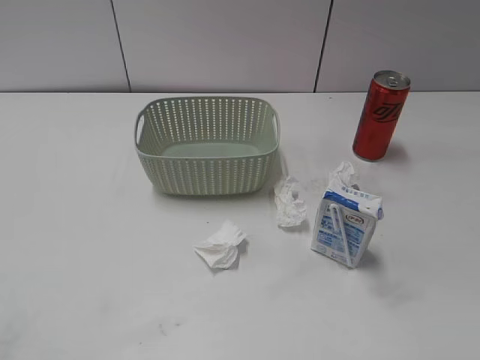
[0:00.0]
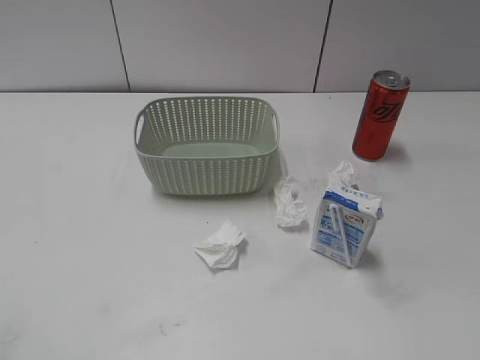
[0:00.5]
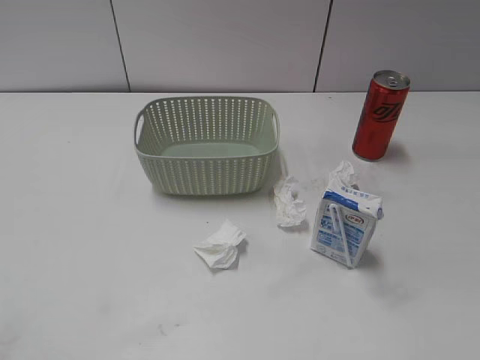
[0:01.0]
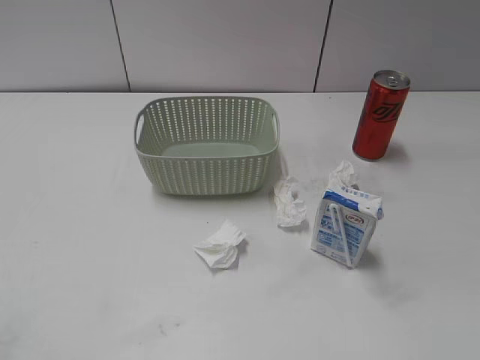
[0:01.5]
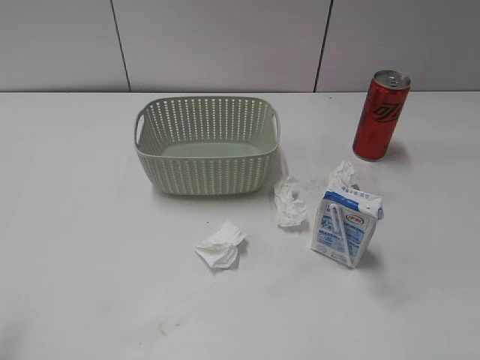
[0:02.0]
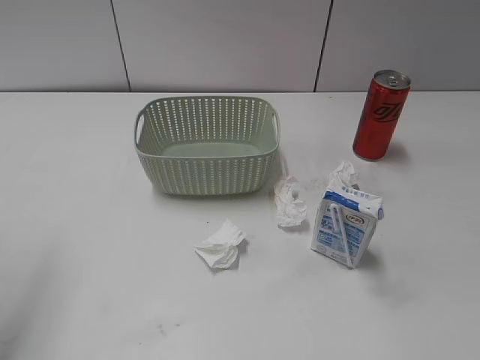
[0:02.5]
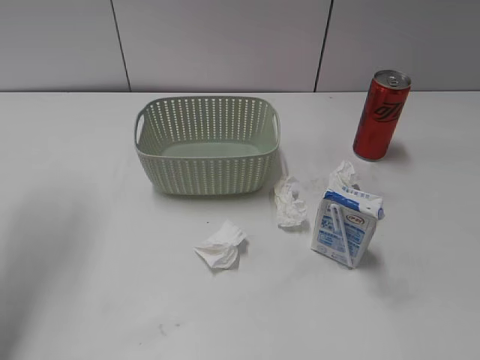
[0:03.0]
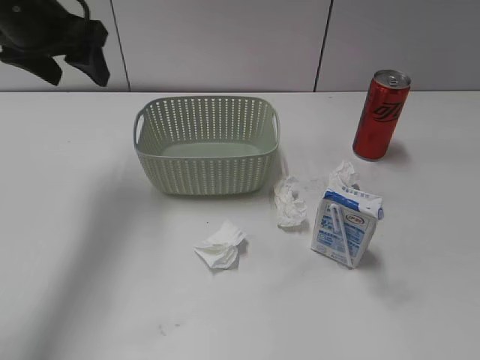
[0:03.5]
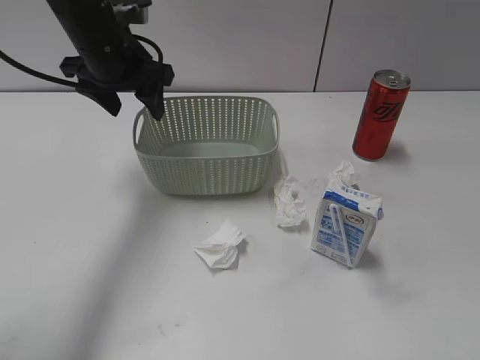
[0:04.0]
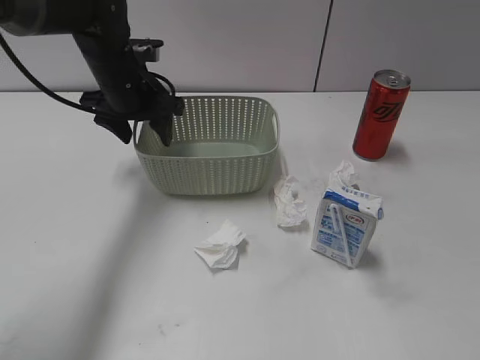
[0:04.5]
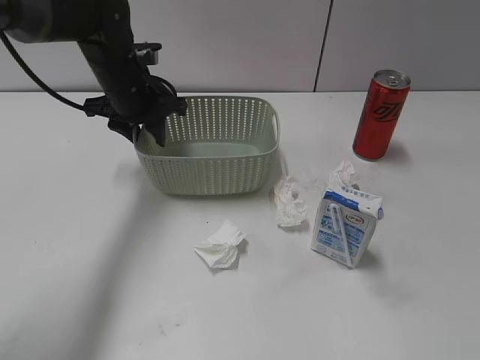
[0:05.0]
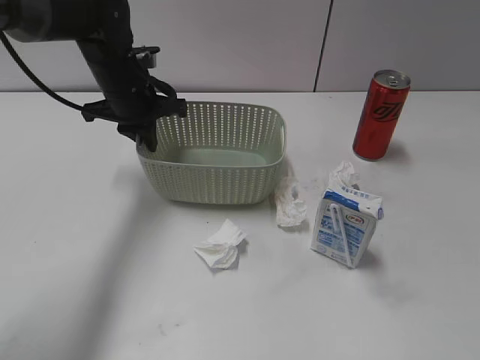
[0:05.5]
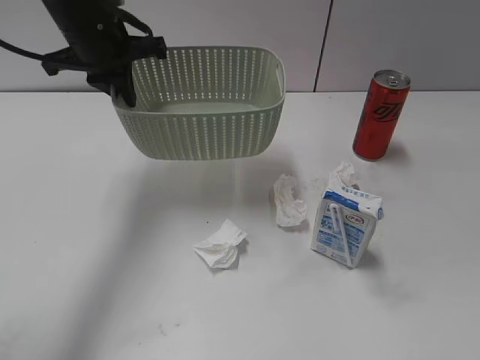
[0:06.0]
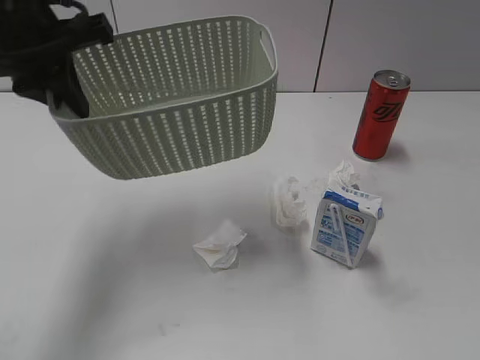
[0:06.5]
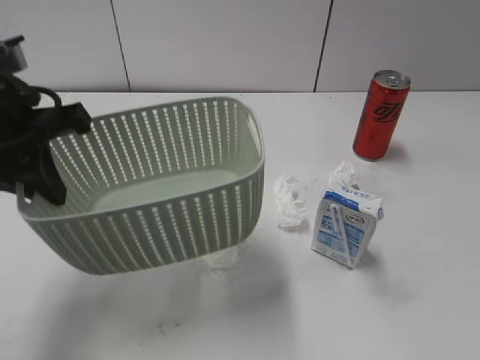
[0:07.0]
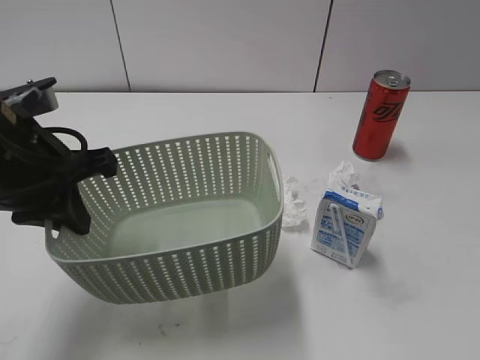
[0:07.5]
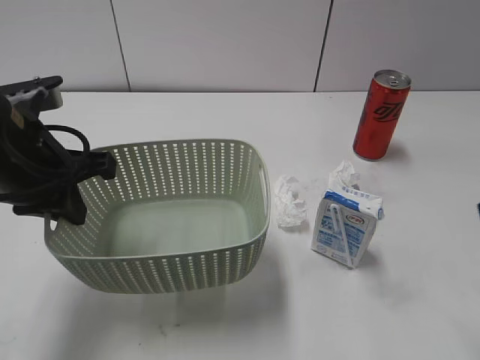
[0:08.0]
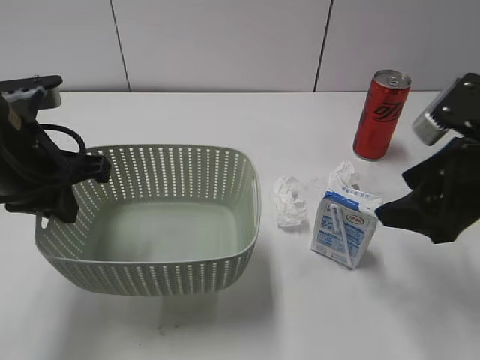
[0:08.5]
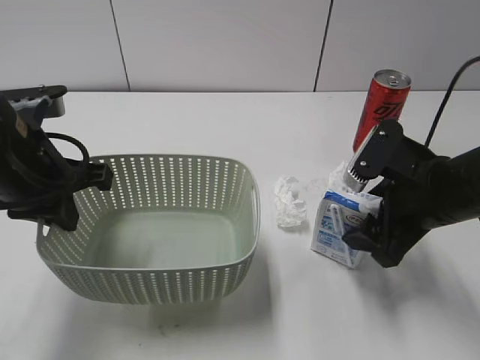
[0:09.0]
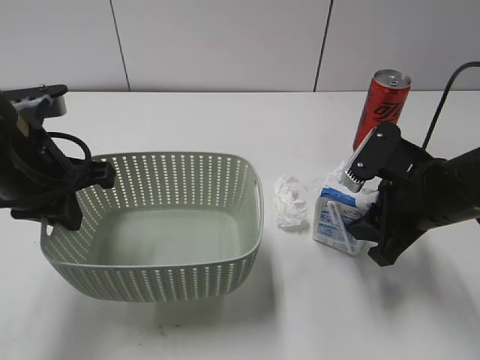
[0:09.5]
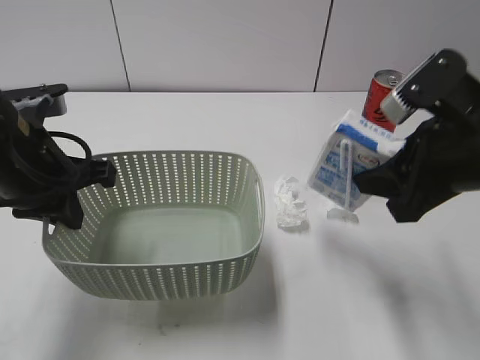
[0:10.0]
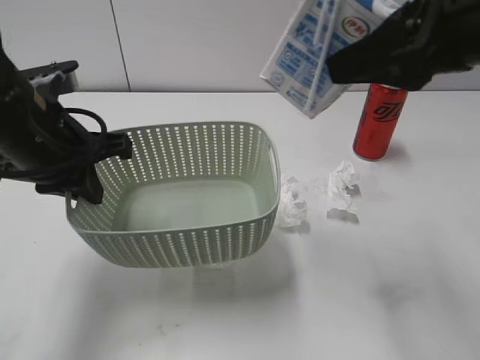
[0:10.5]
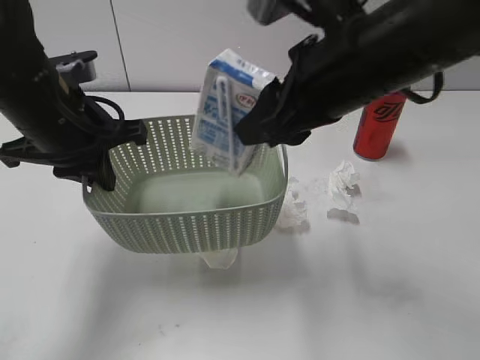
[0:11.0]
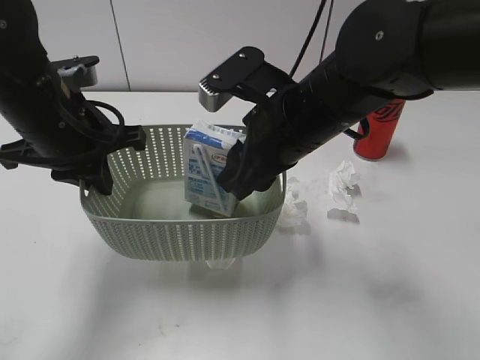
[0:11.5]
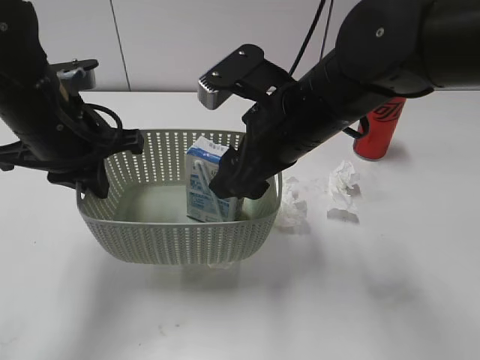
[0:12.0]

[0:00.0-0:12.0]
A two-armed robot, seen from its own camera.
Step, 0:03.5 to 0:05.0: Grasp the basket with left gripper.
Step, 0:05.5 to 0:07.5: Lift the basket with left gripper.
Step, 0:08.0 to 0:09.0: Grasp the milk with right gripper.
0:02.0 to 0:04.0: The left gripper goes approximately 40 cm forward and to the right.
0:04.0 to 0:06.0: The left gripper travels downward and back again, some 5 cm each way, and closes up.
0:06.0 to 0:08.0: The left gripper moves backward, some 15 cm. Meanwhile the right gripper is displaced forward by about 15 cm.
0:08.0 to 0:10.0: The right gripper moves forward and to the left, about 10 cm, travels downward and back again, about 15 cm each way, and closes up.
0:10.0 to 0:12.0: The right gripper heads to the left and forward, covering about 15 cm, and opens up.

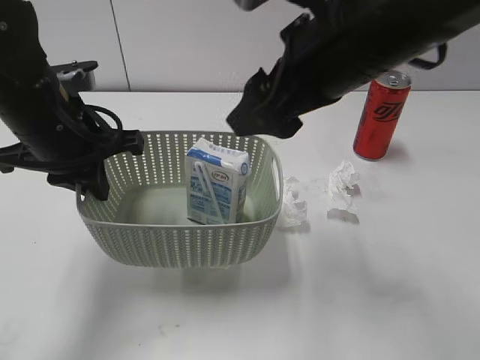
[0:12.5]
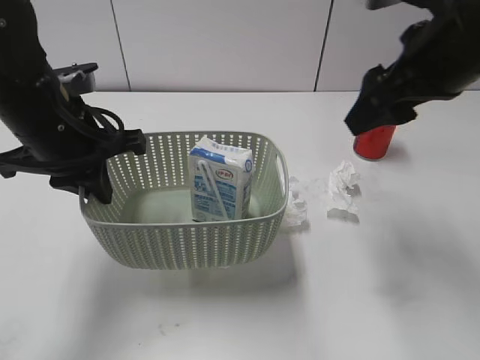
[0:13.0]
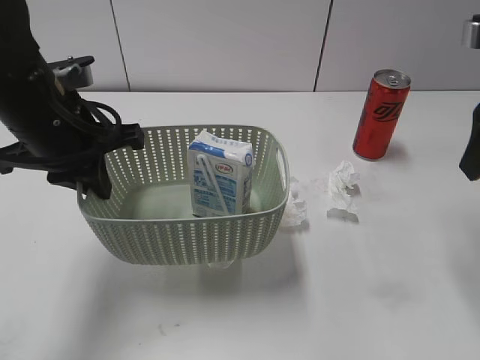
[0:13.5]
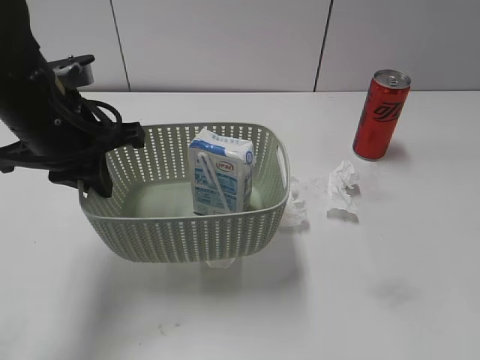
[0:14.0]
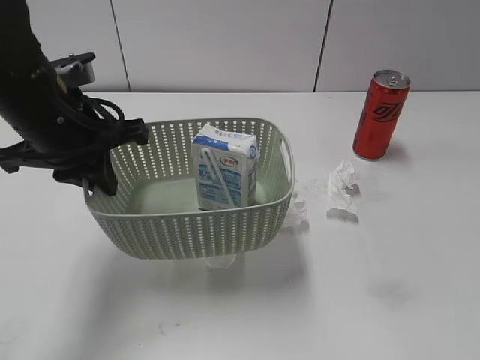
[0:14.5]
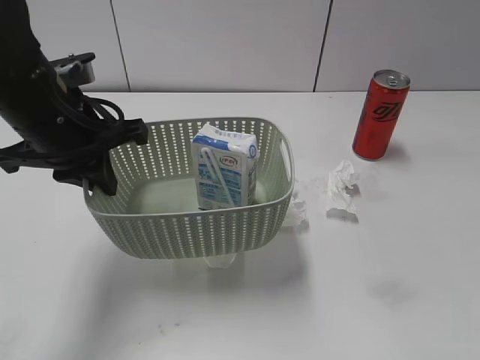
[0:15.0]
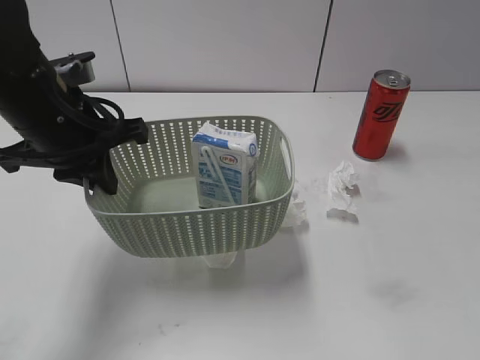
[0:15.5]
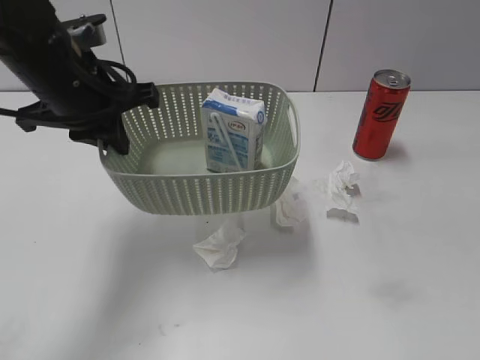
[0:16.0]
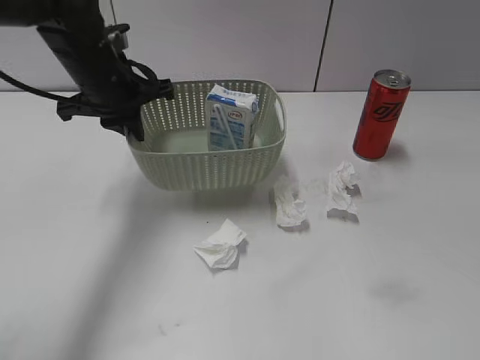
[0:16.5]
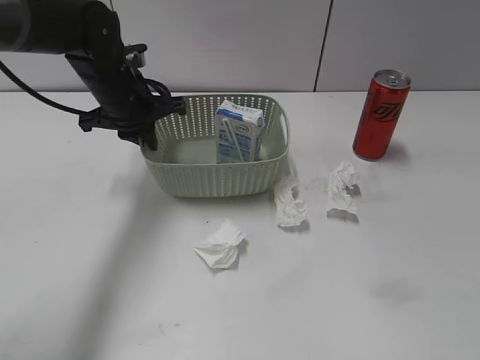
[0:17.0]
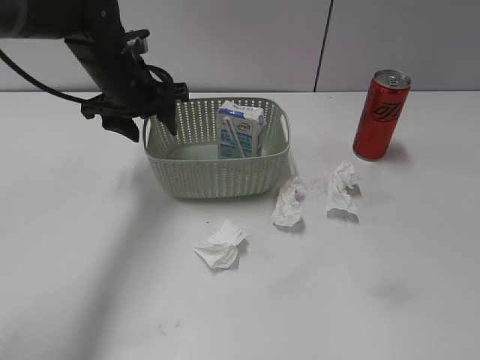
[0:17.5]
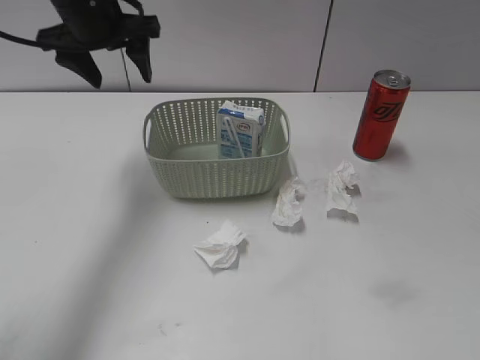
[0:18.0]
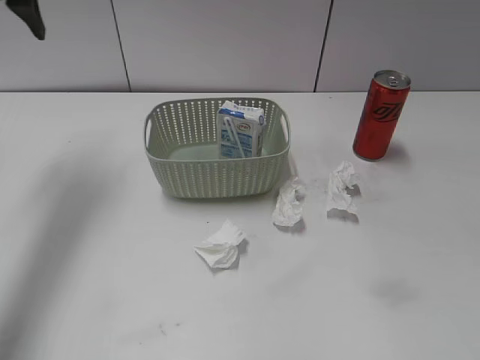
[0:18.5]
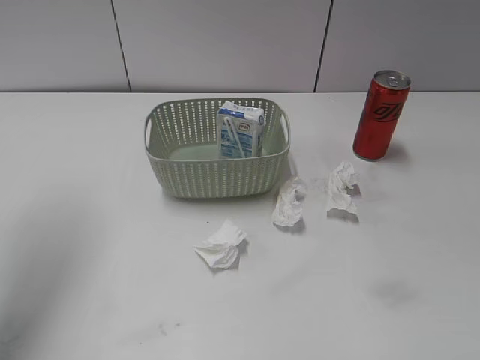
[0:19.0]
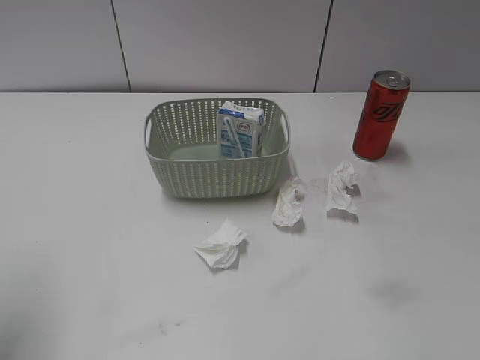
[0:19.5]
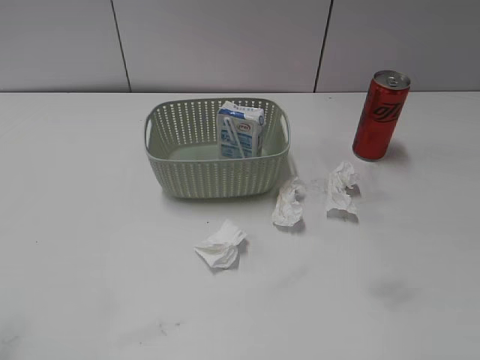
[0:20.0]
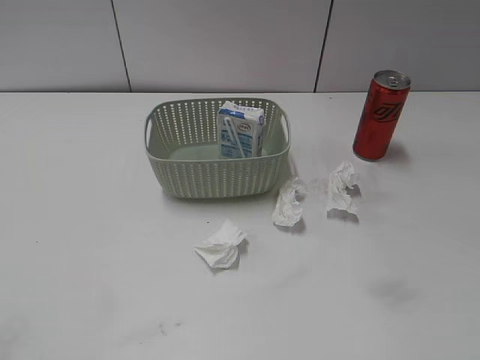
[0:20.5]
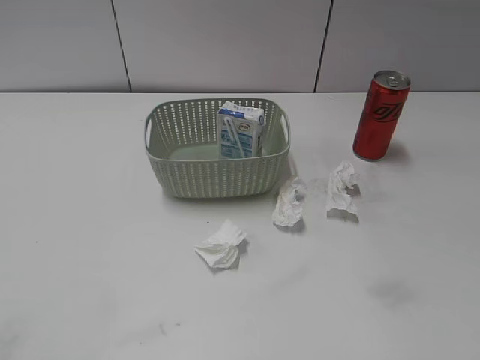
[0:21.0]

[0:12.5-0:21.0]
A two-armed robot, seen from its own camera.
Step, 0:13.0 to 0:17.5: Place the basket on the table with left gripper.
0:12.5 to 0:14.5: The right gripper goes approximately 30 cm backward and to the right.
0:14.5 to 0:16.5: The left gripper shifts approximately 10 cm forward.
0:16.5 to 0:19.0: The left gripper moves upward, to the left and backward, approximately 25 cm, and opens its fingers.
0:19.0 to 0:21.0: The left gripper moves backward, some 30 cm.
